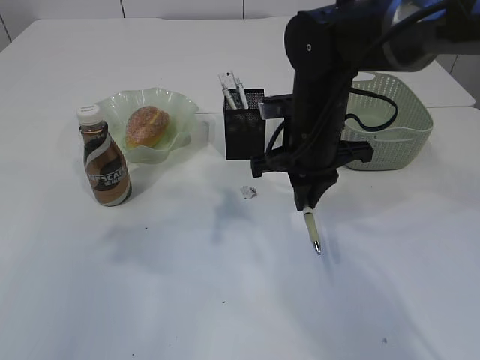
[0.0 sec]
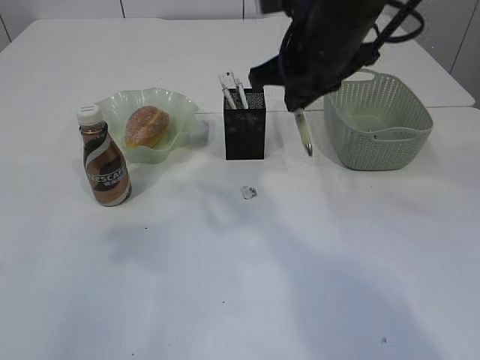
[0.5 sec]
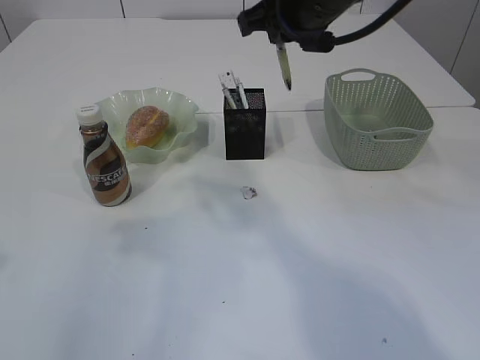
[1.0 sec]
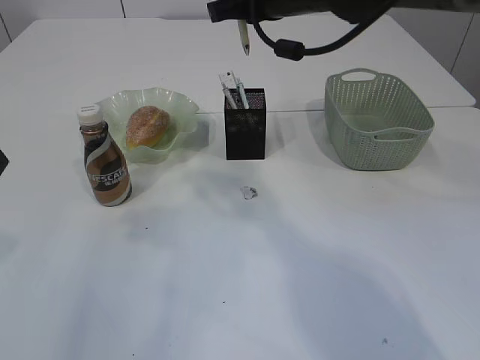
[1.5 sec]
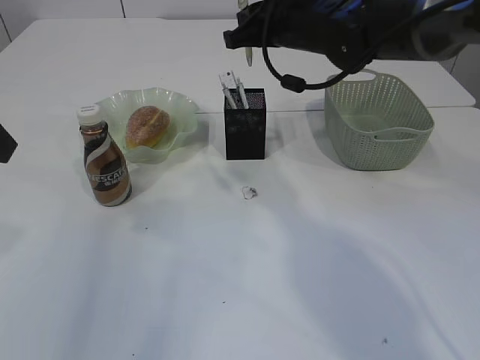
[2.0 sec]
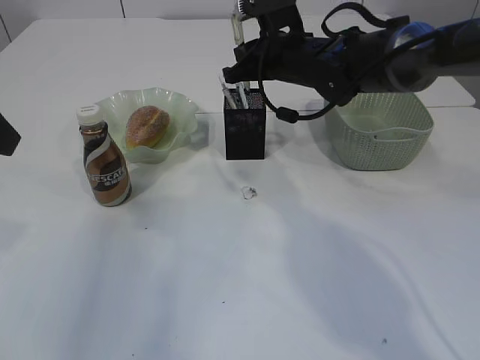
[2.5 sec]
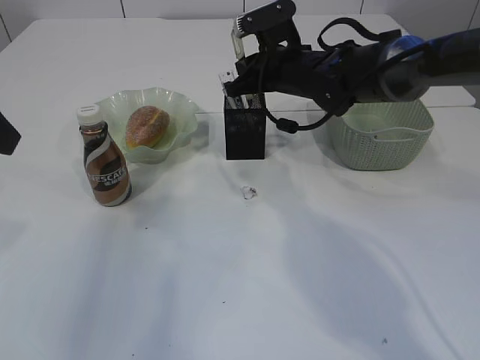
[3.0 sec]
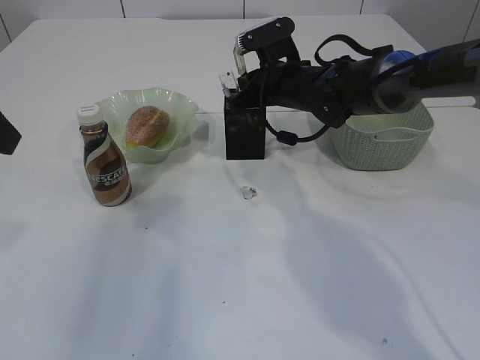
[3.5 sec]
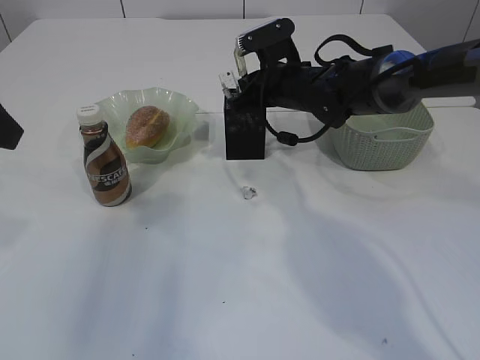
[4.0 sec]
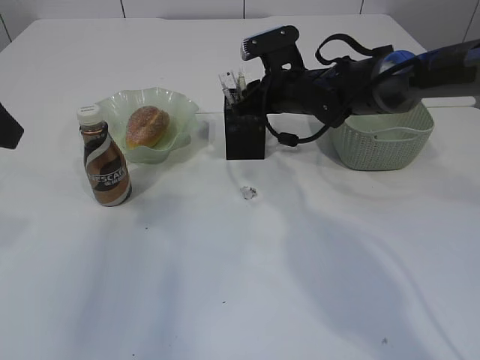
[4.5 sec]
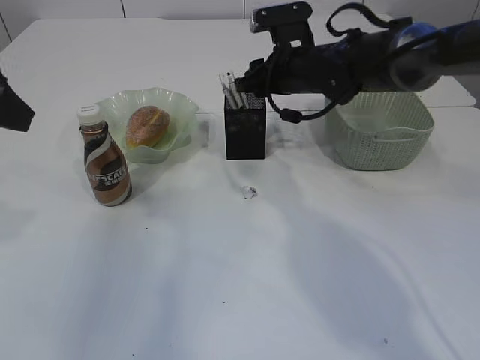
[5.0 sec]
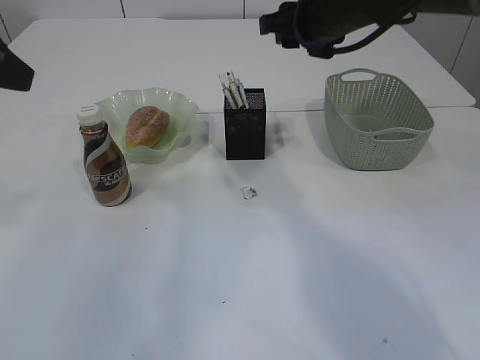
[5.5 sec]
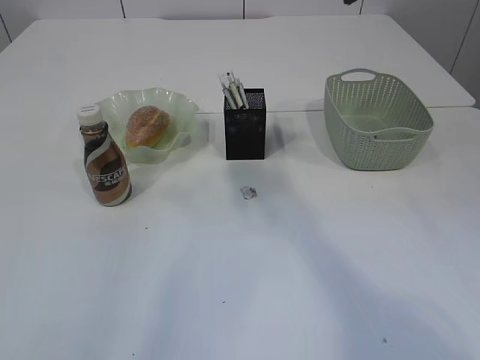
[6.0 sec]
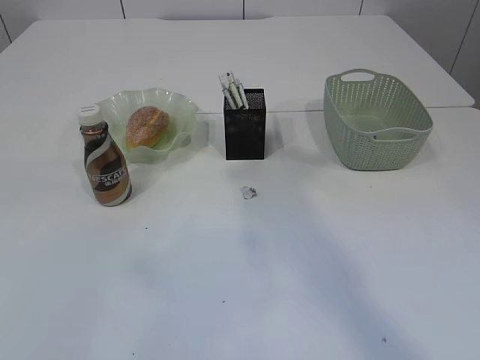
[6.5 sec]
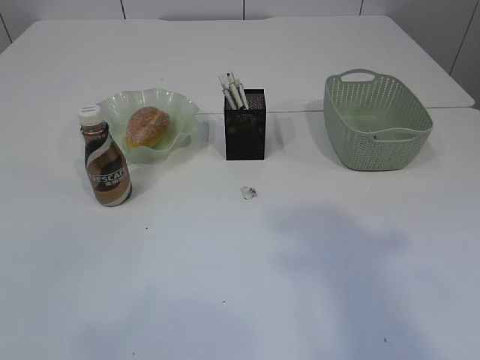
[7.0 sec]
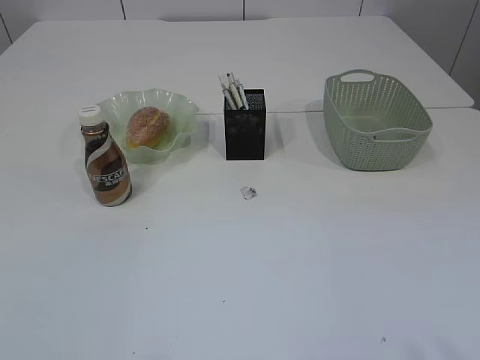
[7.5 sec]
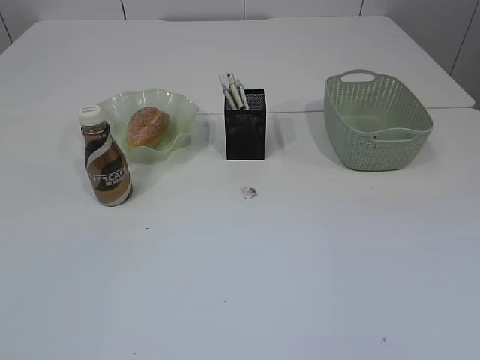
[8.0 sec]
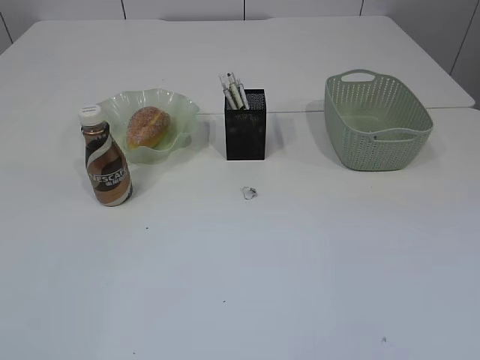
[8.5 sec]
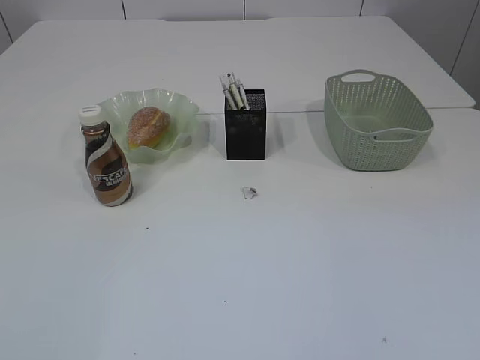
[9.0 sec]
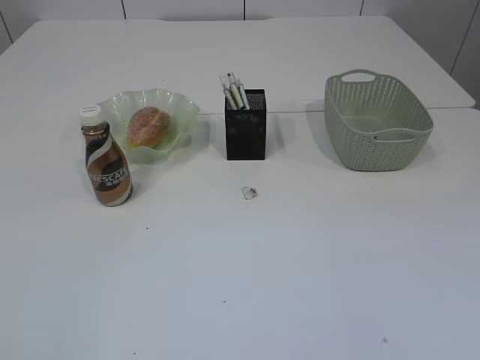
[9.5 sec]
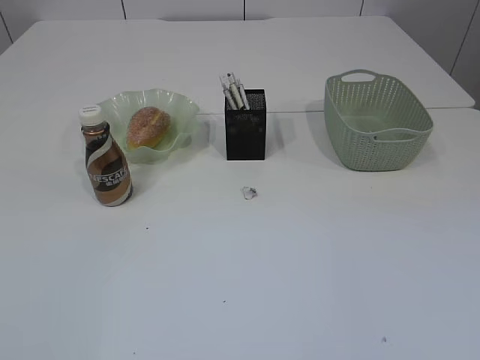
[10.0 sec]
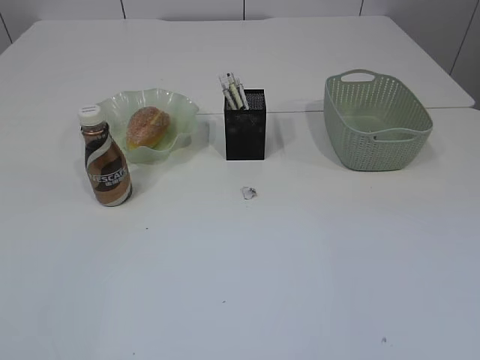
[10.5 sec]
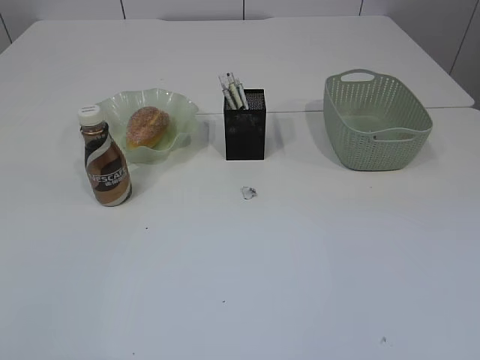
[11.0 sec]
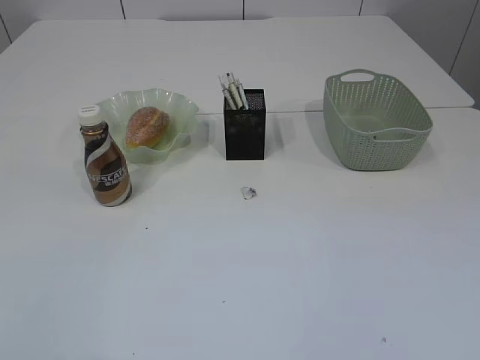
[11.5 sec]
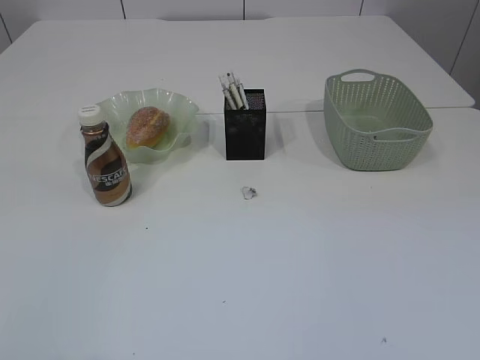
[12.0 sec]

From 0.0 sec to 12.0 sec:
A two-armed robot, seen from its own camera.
Step, from 0.0 sec to 5.0 sec: Place the pen into the pen holder.
From 0.0 sec to 2.0 sec: The right gripper shifts some 15 cm forward and upward.
From 2.0 sec to 4.0 sec: The right gripper goes approximately 10 cm downward.
From 4.0 sec to 6.0 sec: The right gripper is displaced upward and backward by some 25 cm, and opens up. The left gripper goes some 10 cm upward and backward.
From 6.0 sec to 8.0 sec: The left gripper is displaced backward by some 25 cm, while the right gripper heads backward, covering roughly 40 cm.

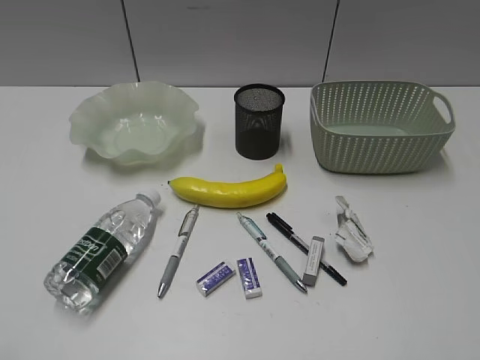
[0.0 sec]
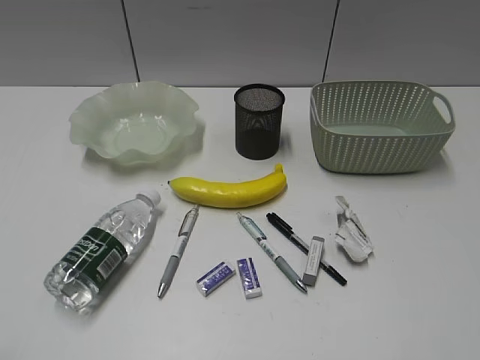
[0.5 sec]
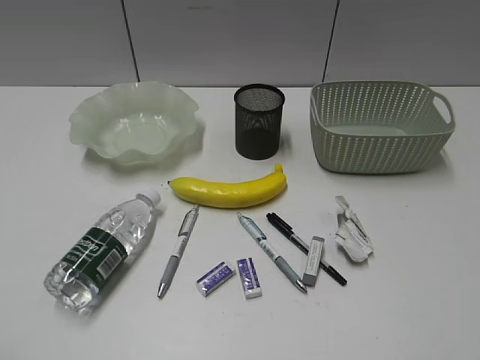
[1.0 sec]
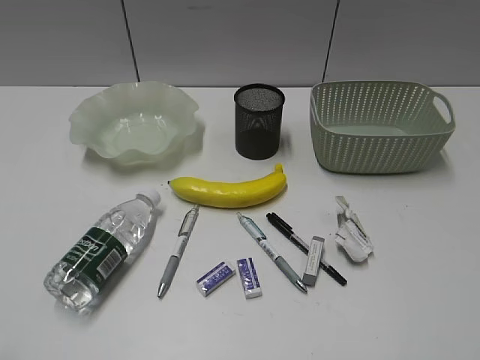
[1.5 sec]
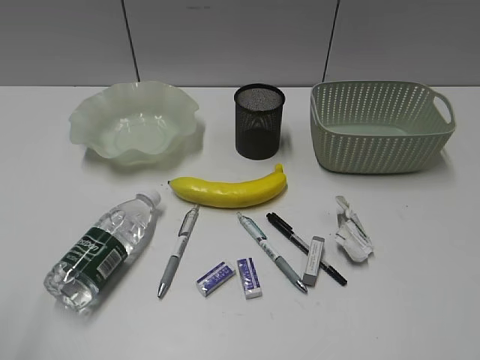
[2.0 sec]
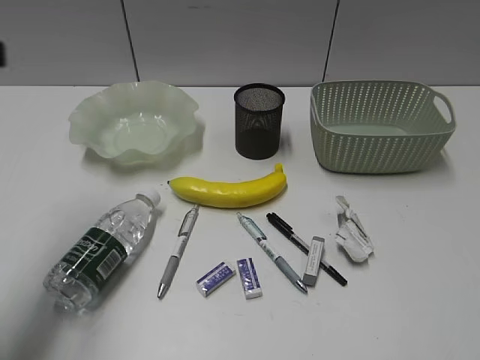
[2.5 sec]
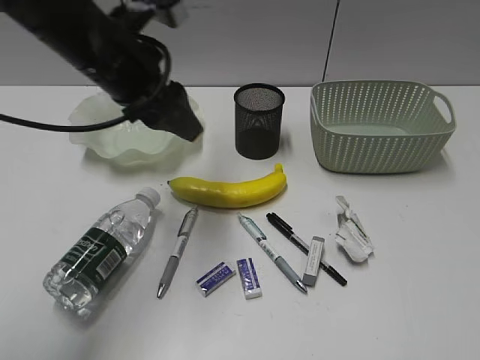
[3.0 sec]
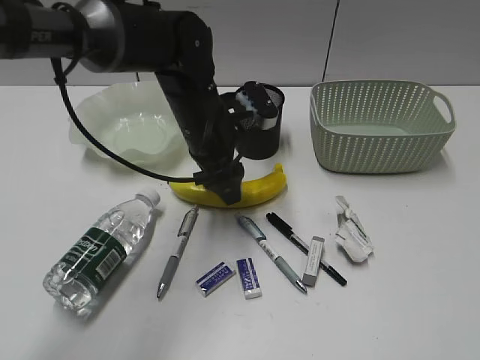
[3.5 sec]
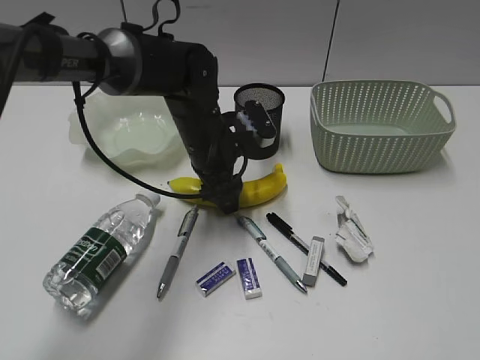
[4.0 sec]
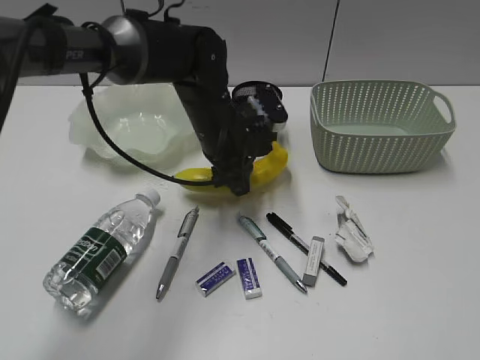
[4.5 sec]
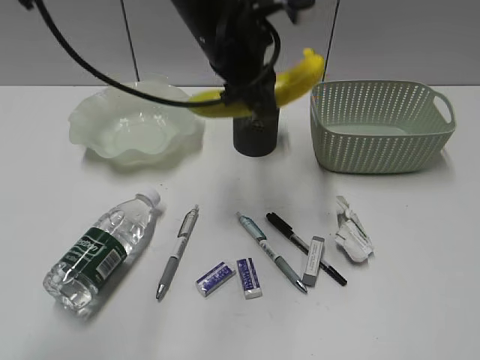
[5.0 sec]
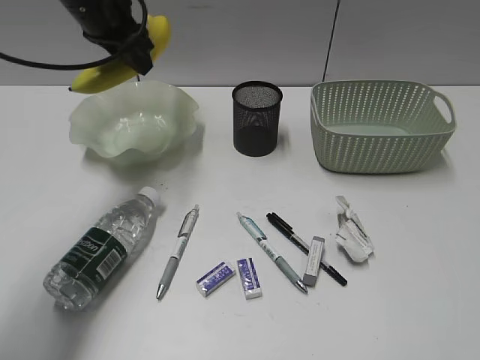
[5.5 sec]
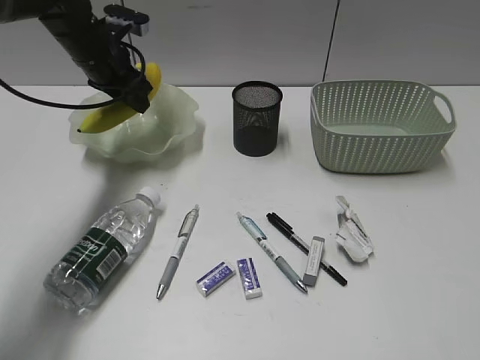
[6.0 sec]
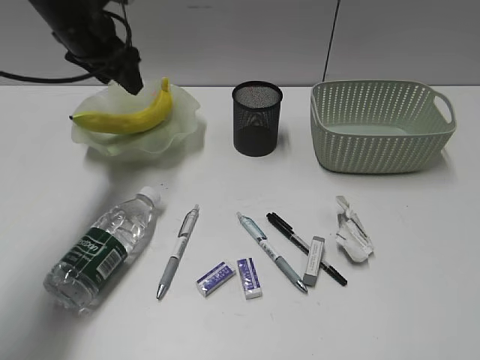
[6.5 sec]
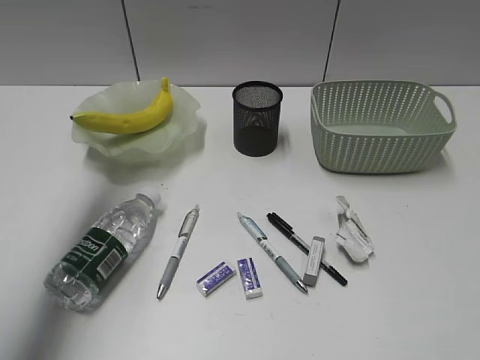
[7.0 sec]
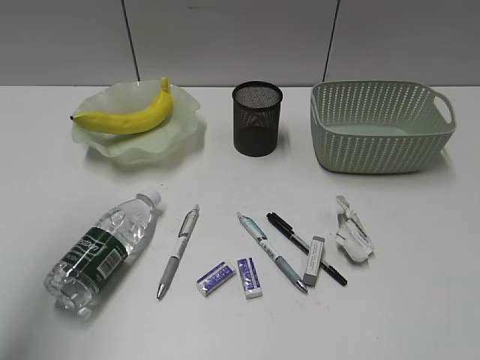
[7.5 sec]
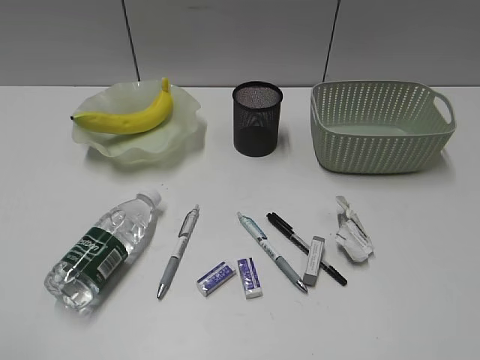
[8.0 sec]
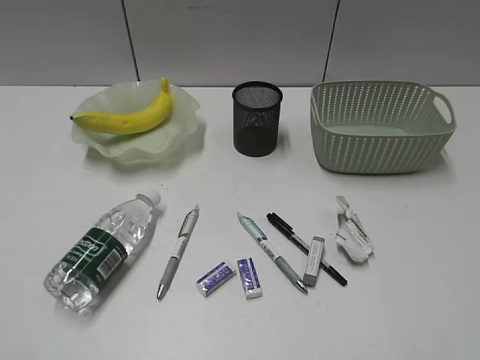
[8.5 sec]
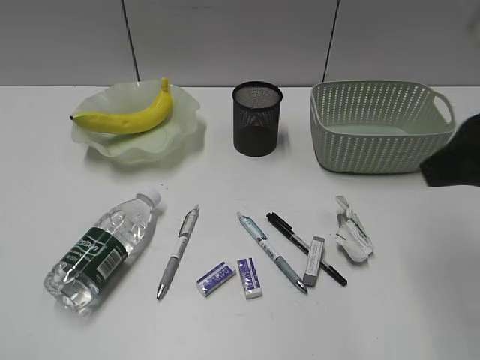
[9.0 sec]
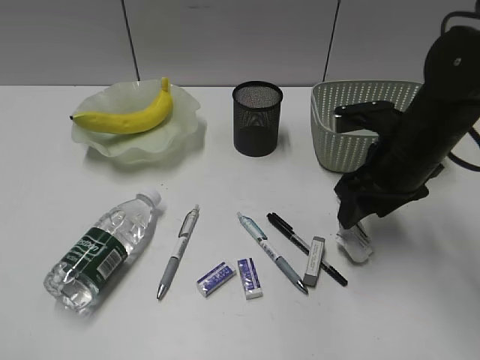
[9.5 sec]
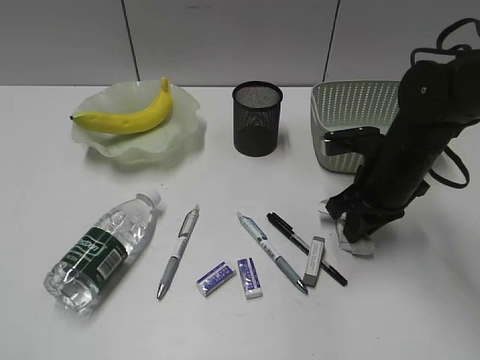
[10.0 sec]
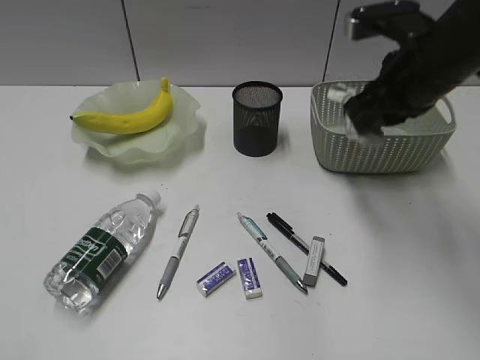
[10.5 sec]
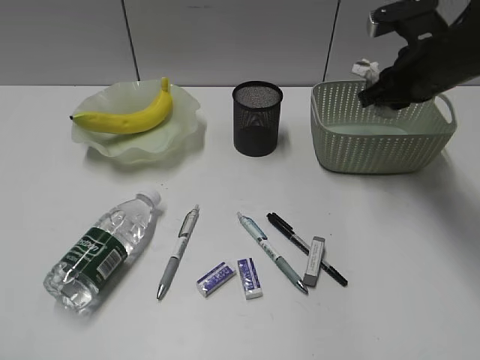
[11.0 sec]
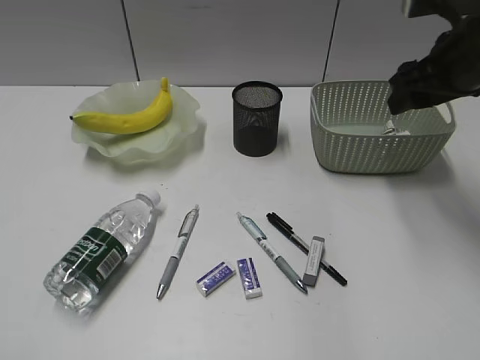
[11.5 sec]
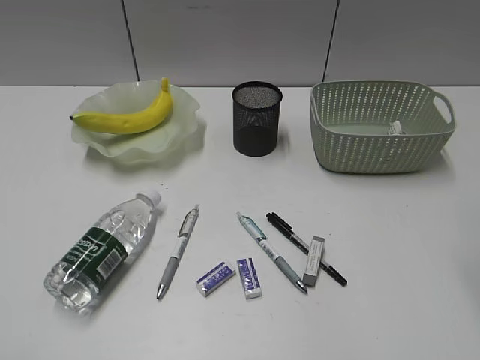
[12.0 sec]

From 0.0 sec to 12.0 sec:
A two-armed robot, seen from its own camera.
Step, from 2.0 sec to 4.0 sec: Grasp the banana with left gripper.
Step, from 4.5 sec to 6.0 sec: Place the banana in the plate with left gripper.
Step, from 6.5 sec to 10.0 sec: Grasp the waste paper with right gripper.
Step, from 10.5 sec to 11.0 sec: Place the waste paper in the basket with right gripper.
From 2.0 sec to 4.0 sec: The left gripper goes roughly 50 cm forward, to the right and downward, and opens its fingers.
From 4.0 sec to 6.0 sec: The left gripper heads to the left, forward and upward, covering approximately 20 cm.
From 6.0 sec to 8.0 sec: The left gripper heads backward, covering some 50 cm.
From 8.0 sec to 10.0 sec: The right gripper heads forward and downward, covering some 35 cm, and closes its fingers.
From 10.0 sec to 12.0 sec: The right gripper moves upward and backward, roughly 25 cm, and opens up.

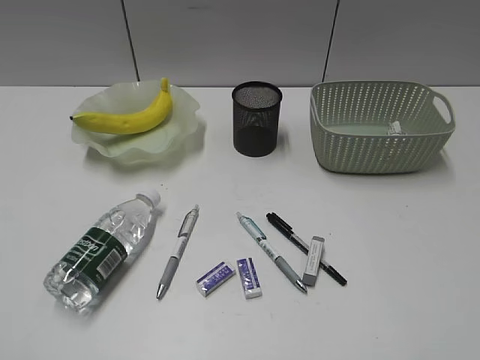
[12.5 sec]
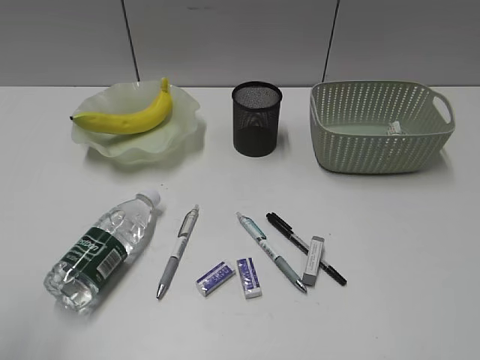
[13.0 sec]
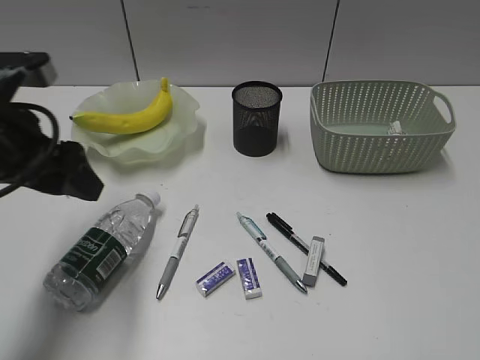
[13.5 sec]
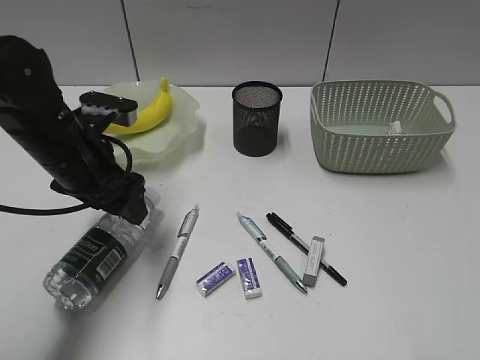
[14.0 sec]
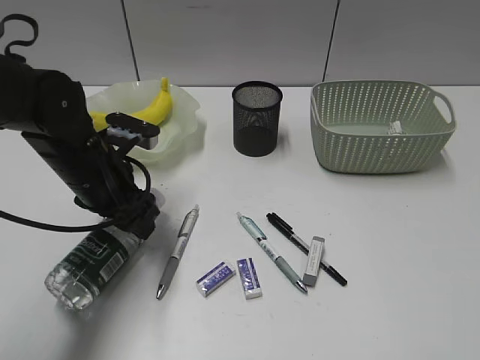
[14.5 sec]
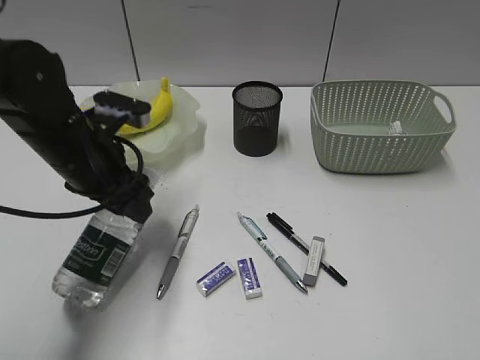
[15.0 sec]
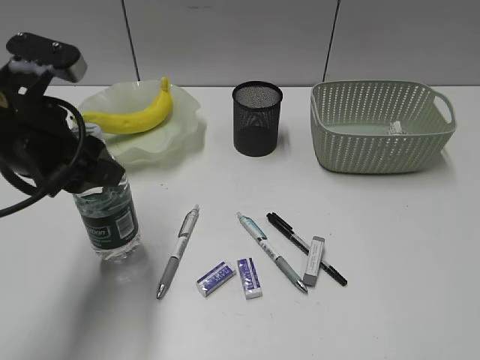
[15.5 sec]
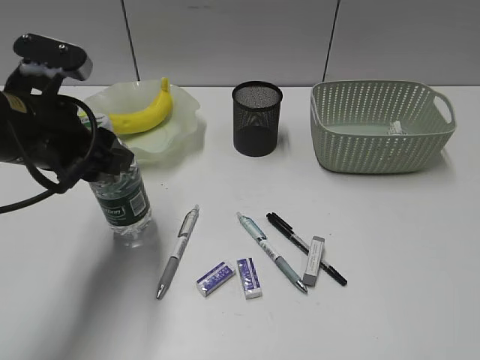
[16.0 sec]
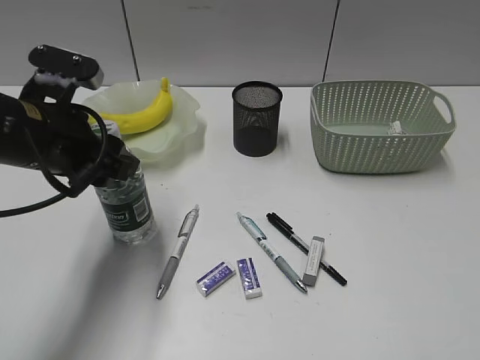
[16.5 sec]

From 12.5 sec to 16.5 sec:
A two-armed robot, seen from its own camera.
Step, from 12.5 sec to 14.5 sec: Grasp the bottle with left gripper.
From 12.5 sec to 14.5 sec: The left gripper moves forward, to the right and downward, about 40 cm.
From 14.5 sec to 16.5 sec: The left gripper heads upward, covering approximately 5 cm.
